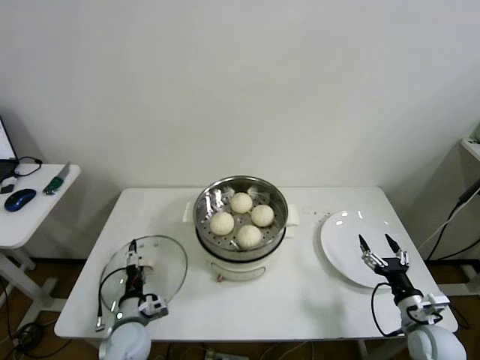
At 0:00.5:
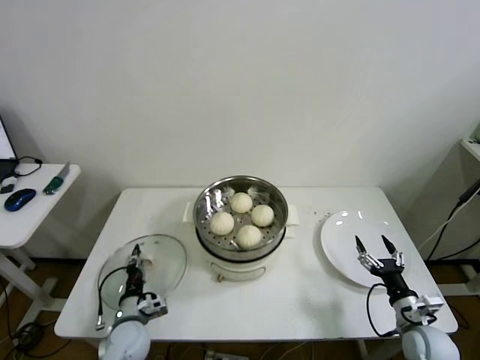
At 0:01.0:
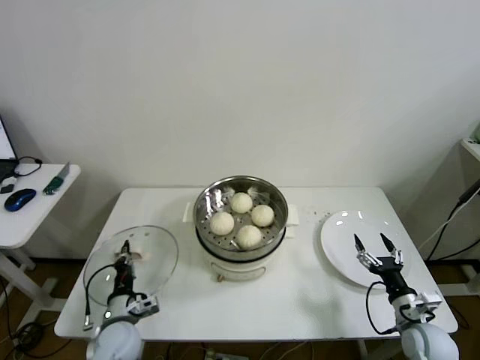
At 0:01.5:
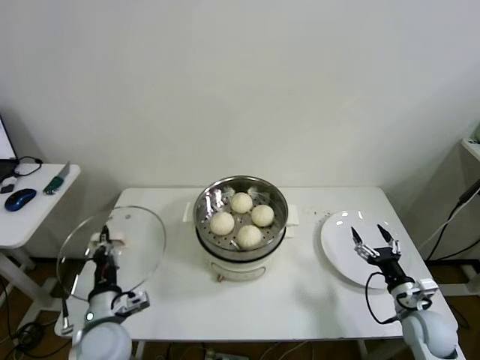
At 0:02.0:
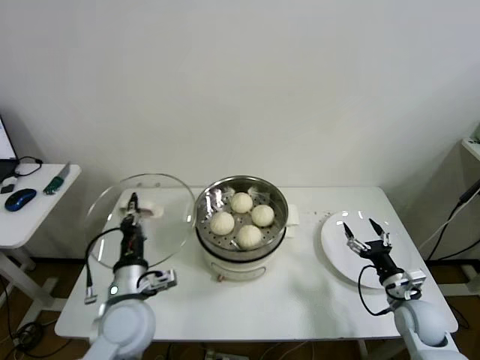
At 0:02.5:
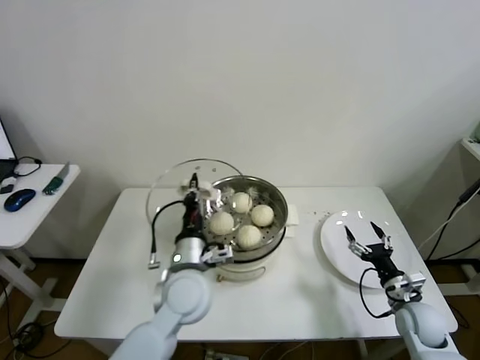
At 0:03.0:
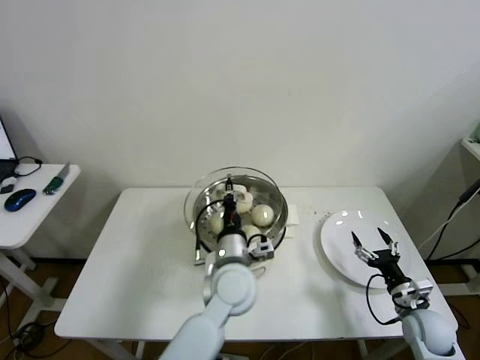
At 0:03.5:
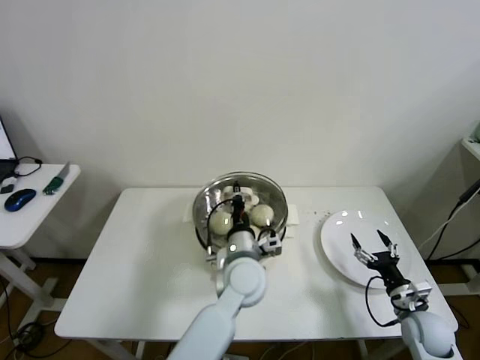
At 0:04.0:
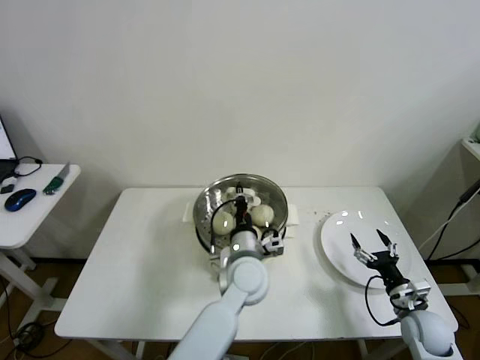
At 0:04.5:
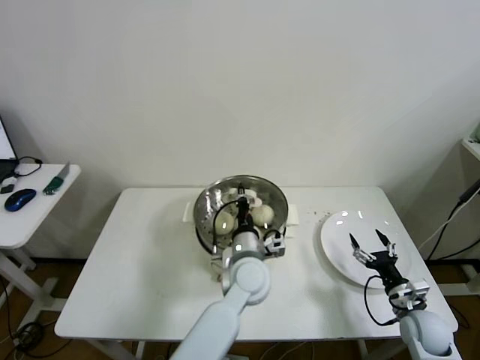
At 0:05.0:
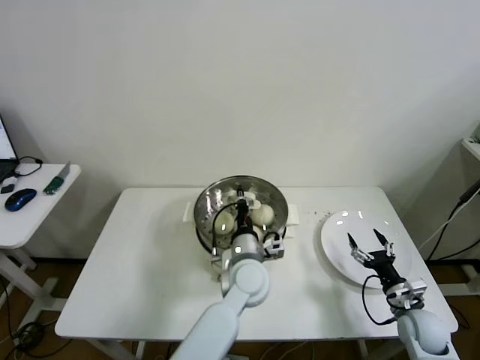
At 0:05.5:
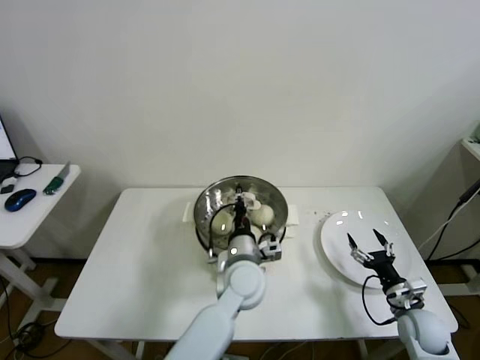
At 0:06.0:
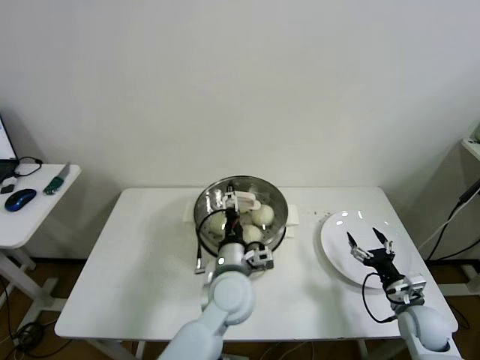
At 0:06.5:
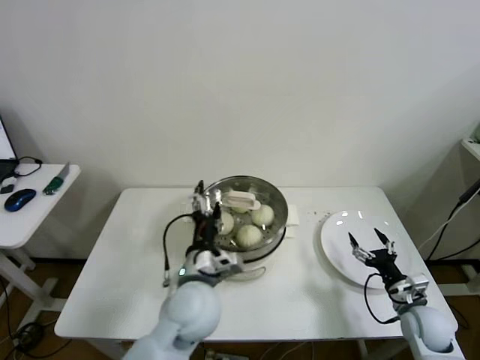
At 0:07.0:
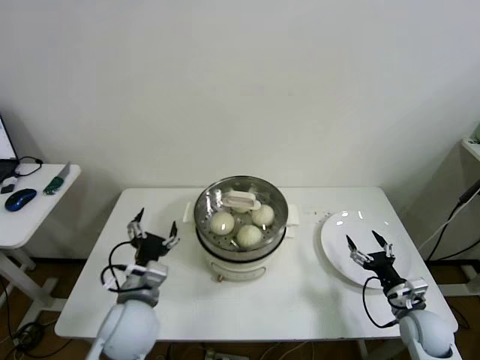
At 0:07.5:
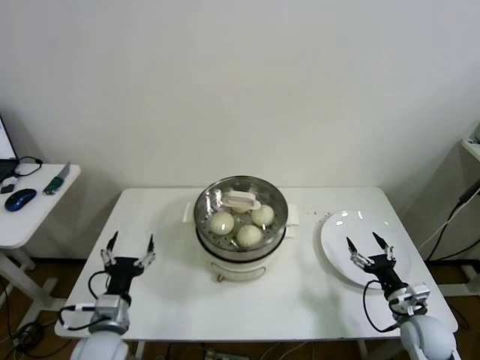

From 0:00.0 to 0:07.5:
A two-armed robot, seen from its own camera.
Step, from 0:01.0 to 0:05.0: Place the pot lid on the steamer with left gripper.
From 0:00.0 to 0:02.0: The left gripper moves upward, approximately 15 cm, and closes its fingers. The right gripper ends up some 5 cm from where it was.
From 0:02.0 to 0:04.0: The left gripper goes roughly 25 cm to the right and forward.
From 0:04.0 to 0:05.5: Both grippers stay put.
From 0:05.5 to 0:07.5: The left gripper travels to the left and backward by roughly 30 cm, and opens its fingers.
